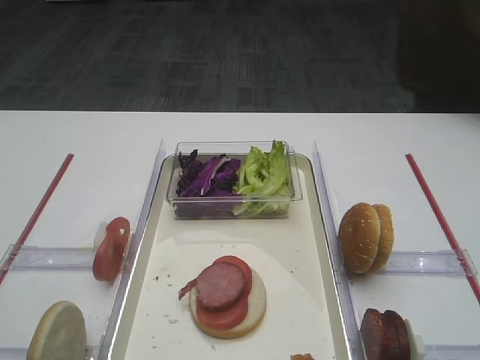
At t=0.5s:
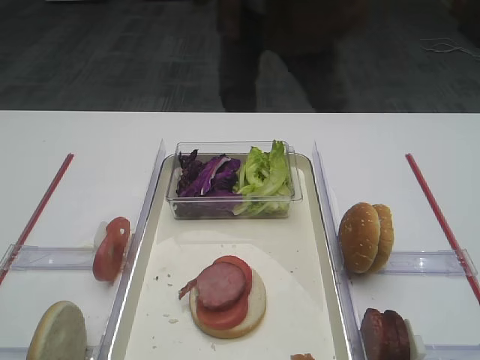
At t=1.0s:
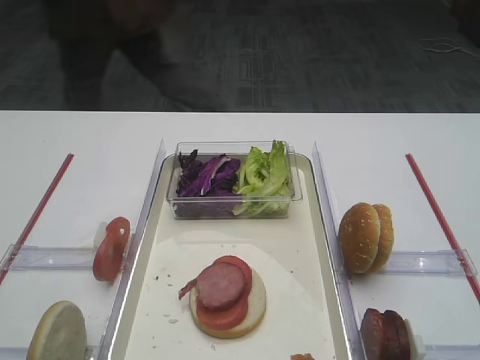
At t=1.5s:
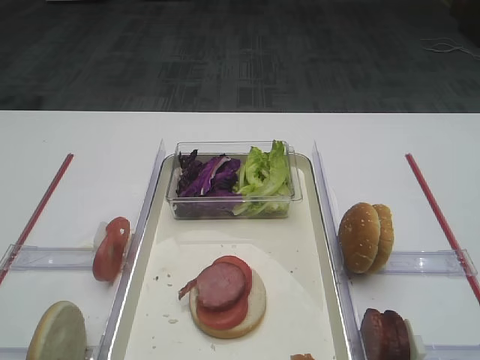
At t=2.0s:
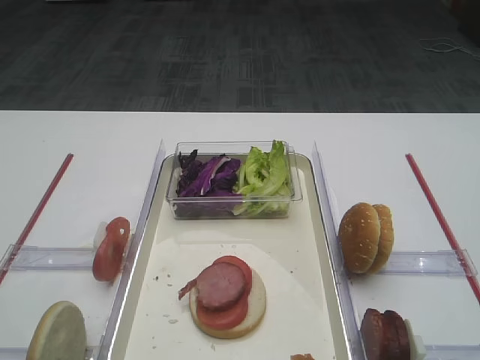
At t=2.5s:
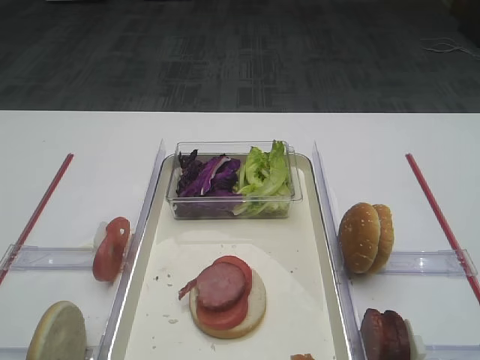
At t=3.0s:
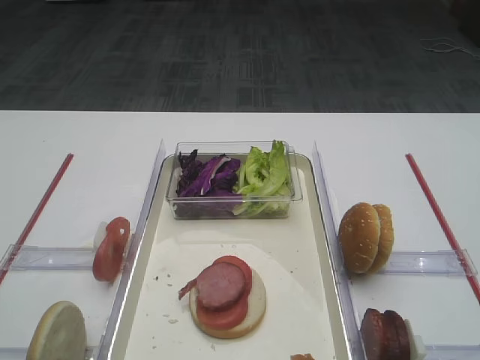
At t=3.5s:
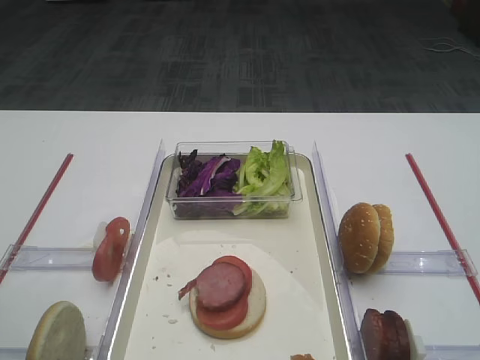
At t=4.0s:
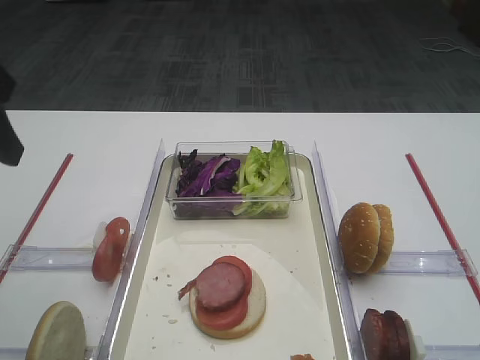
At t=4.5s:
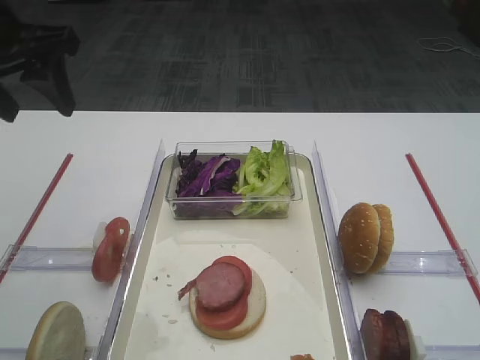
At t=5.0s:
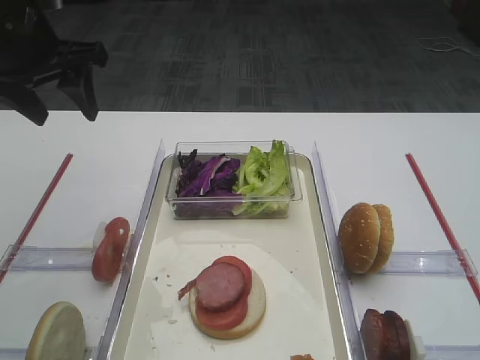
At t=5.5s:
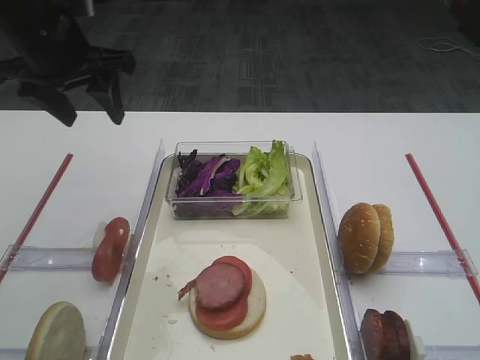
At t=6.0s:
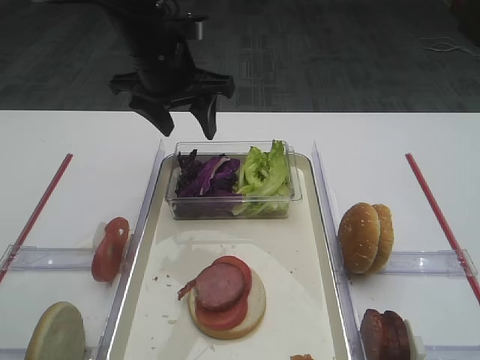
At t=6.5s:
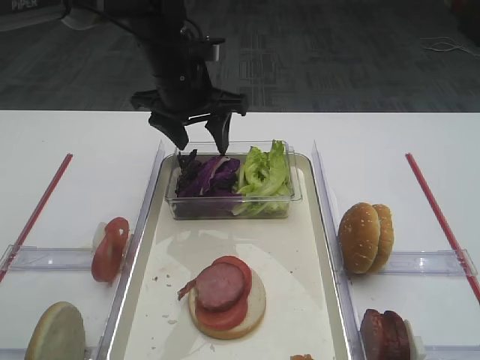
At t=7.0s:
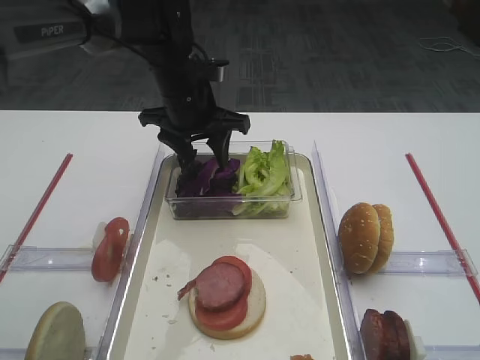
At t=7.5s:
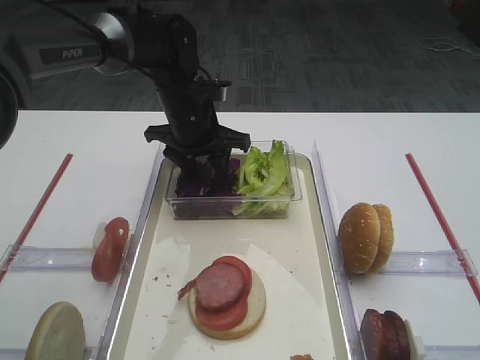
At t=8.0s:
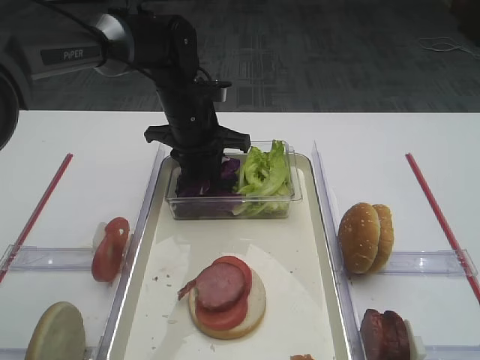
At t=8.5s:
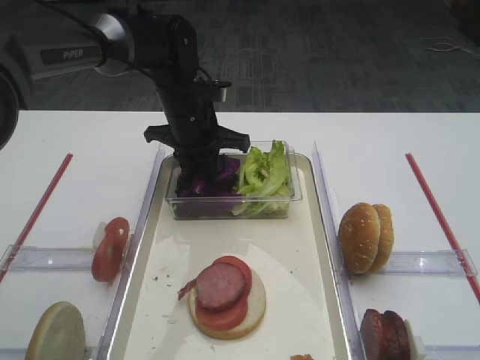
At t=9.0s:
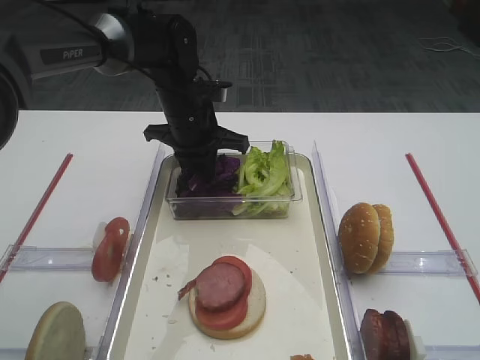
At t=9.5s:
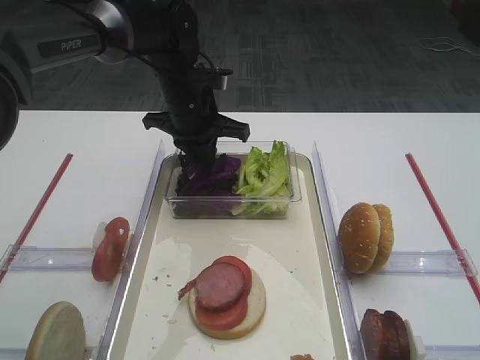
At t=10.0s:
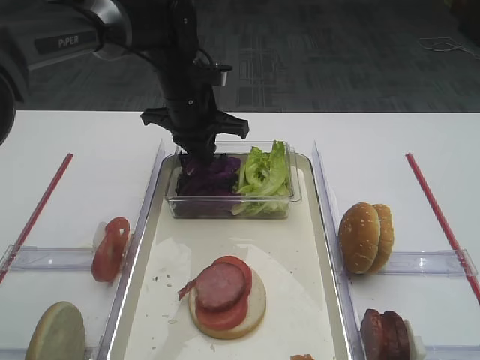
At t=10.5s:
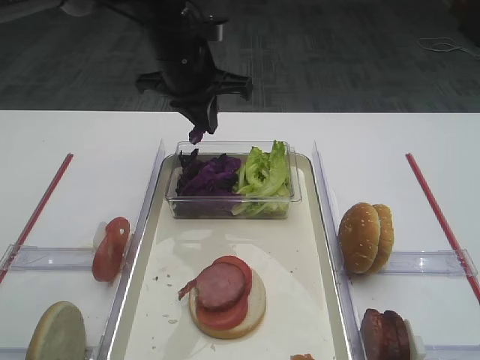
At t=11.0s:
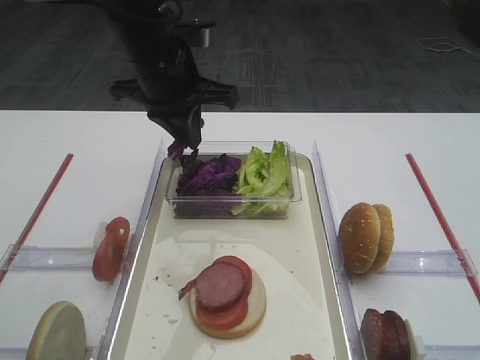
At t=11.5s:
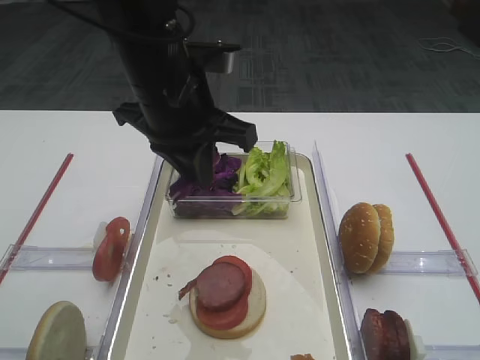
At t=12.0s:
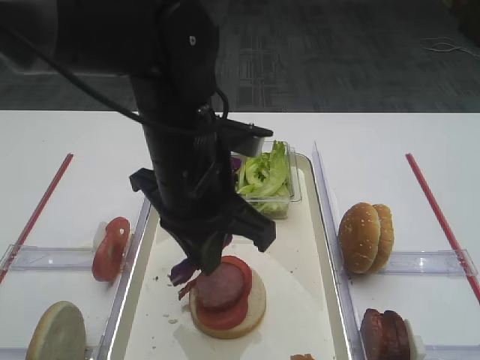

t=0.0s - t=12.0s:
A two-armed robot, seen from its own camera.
Step, t=0.0s - t=10.0s: Pick up the purple cabbage with the left gripper.
t=2.0s - t=4.0s: The left gripper travels forward by about 20 cm, and opens.
t=4.0s - t=6.0s: The left gripper moves forward and to the right, approximately 25 cm.
t=6.0s - t=8.0s: The left gripper heads downward, covering roughly 10 cm, and closes up.
t=8.0s - t=10.0s: The left gripper closes.
t=10.0s - t=12.0s: The right gripper closes up. The left gripper heads backward, covering approximately 20 cm.

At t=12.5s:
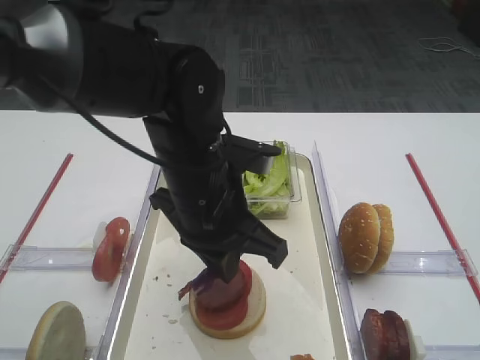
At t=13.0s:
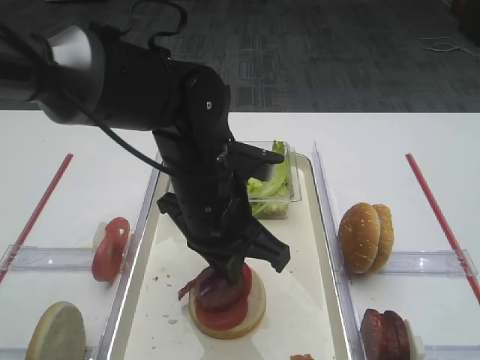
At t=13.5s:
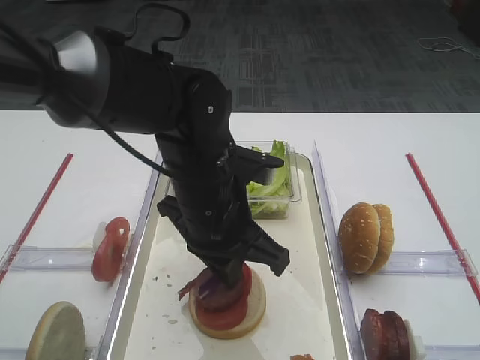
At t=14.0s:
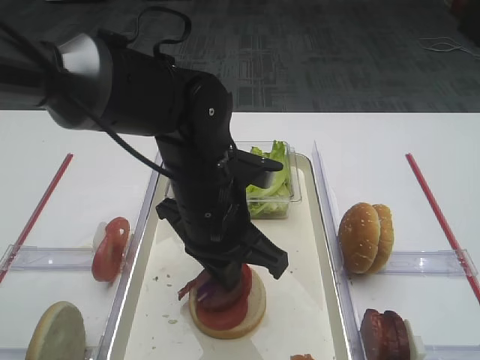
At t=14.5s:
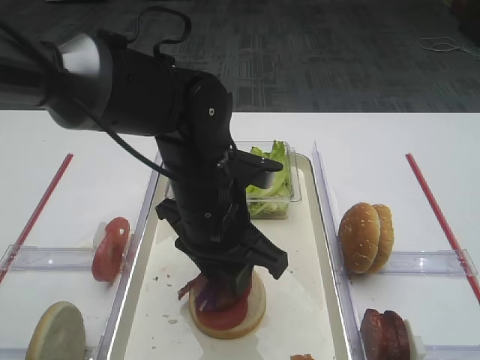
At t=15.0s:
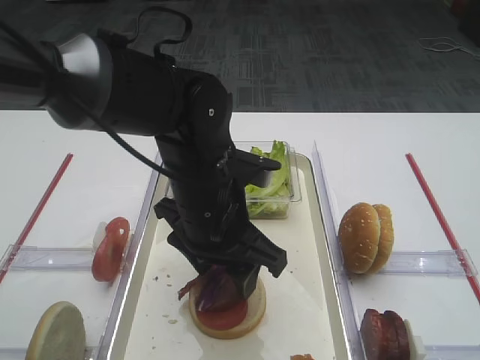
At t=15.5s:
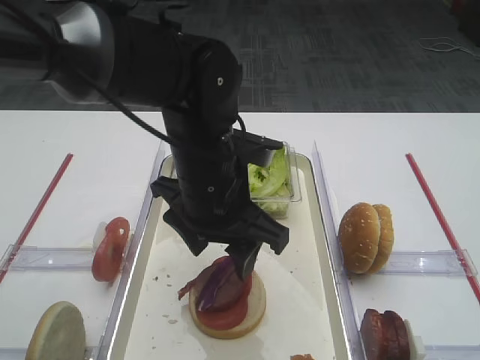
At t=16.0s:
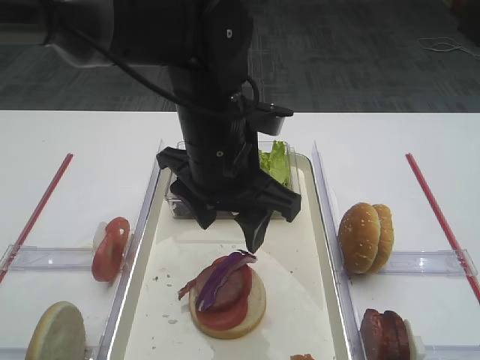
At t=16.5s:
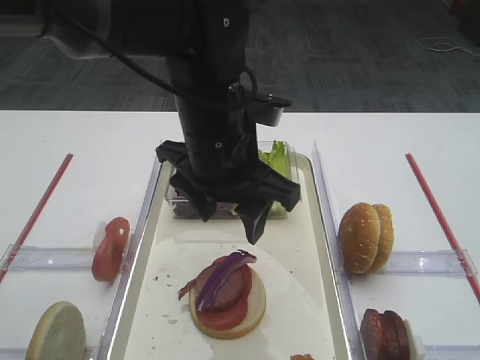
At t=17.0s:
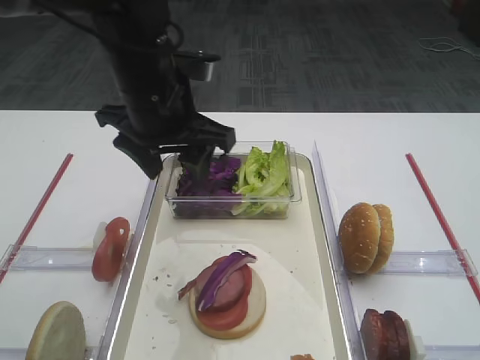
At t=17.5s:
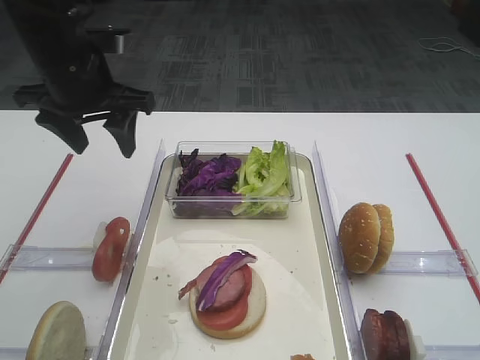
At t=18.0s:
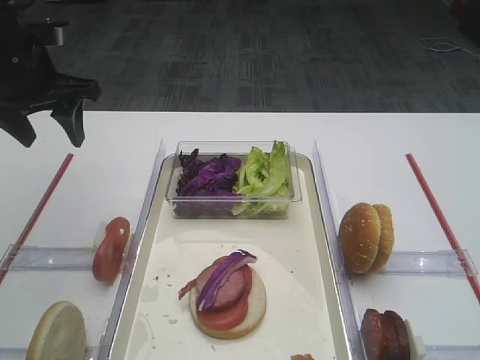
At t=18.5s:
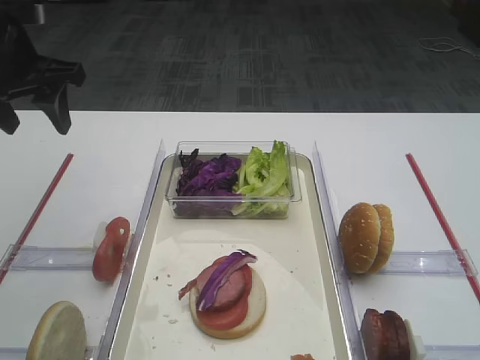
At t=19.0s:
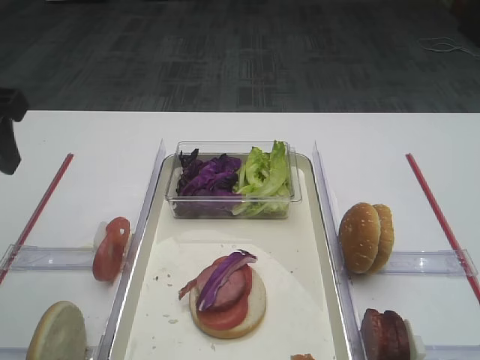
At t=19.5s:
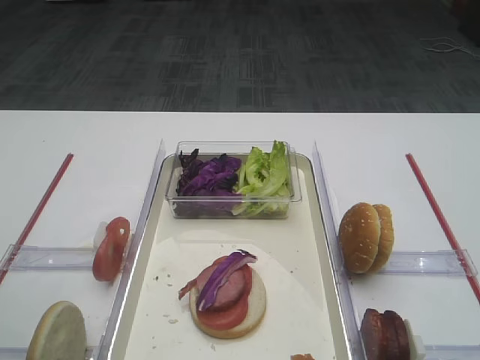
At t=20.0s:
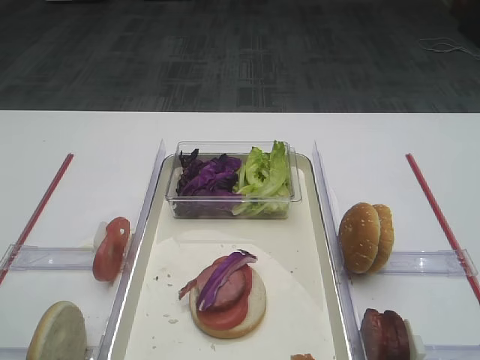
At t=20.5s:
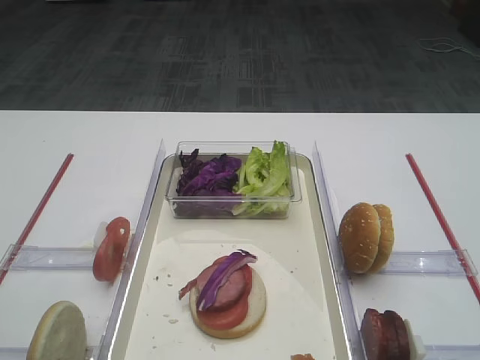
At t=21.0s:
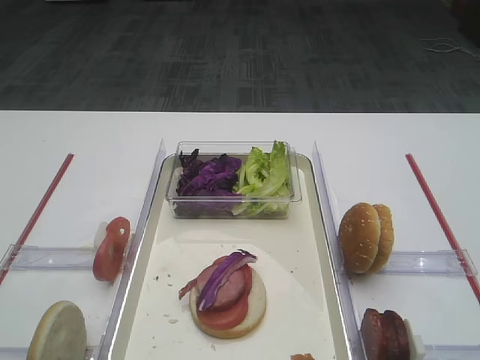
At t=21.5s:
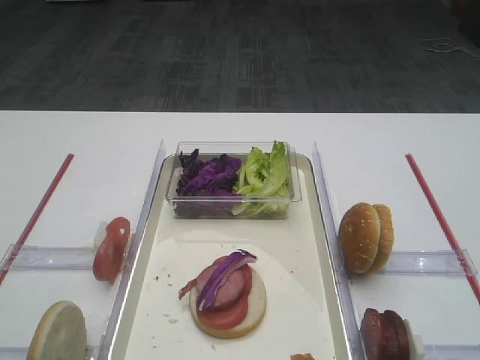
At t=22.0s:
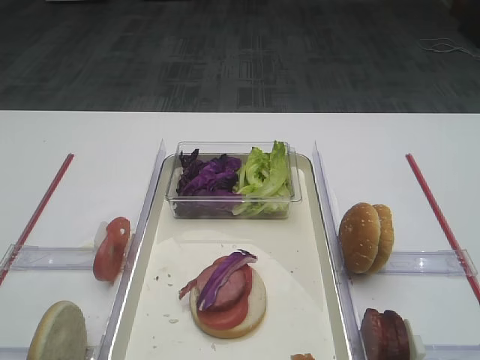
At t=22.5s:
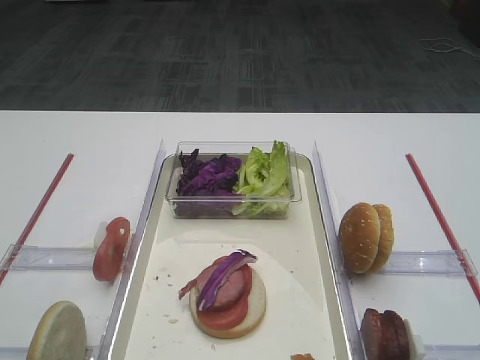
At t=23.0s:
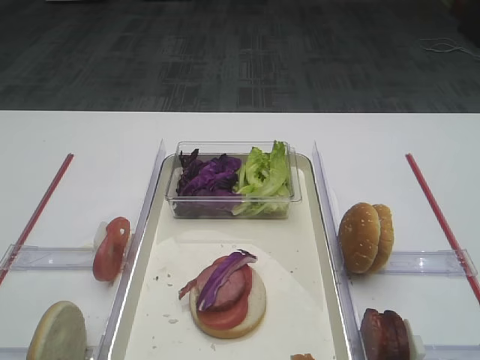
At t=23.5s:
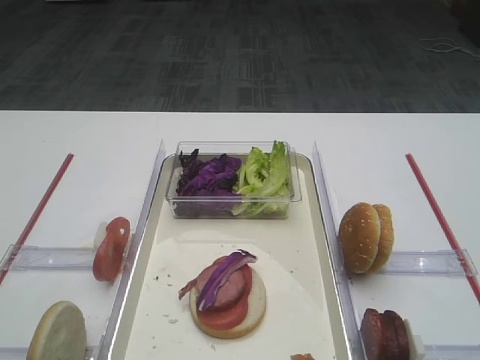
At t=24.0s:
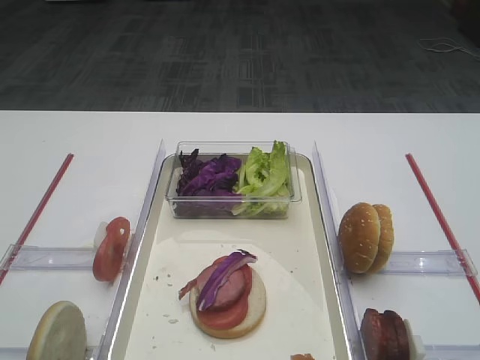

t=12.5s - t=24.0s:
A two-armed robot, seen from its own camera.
Step, t=12.5s - t=15.5s: Place the purple cabbage on the cutlet with the left gripper.
t=12.5s - t=14.5s: The left gripper opens its fingers.
t=14.5s - t=16.5s: The left gripper travels upward by approximately 5 cm, and opens its fingers.
t=16.5s - t=18.5s: The left gripper is displaced to the left by about 25 cm.
t=18.5s - t=20.0s: The left gripper shifts about 25 cm backward.
t=22.0s - t=24.0s: Both grippers stay about where they are.

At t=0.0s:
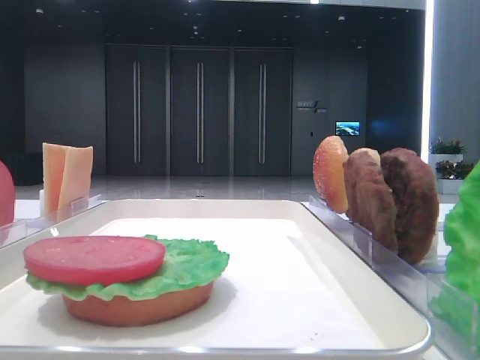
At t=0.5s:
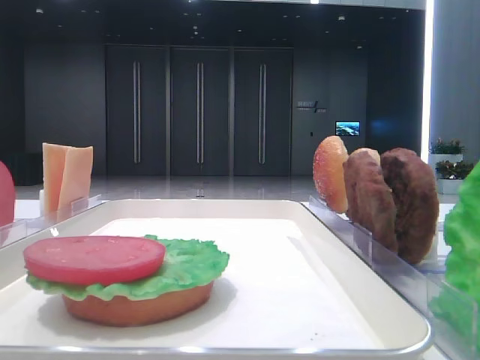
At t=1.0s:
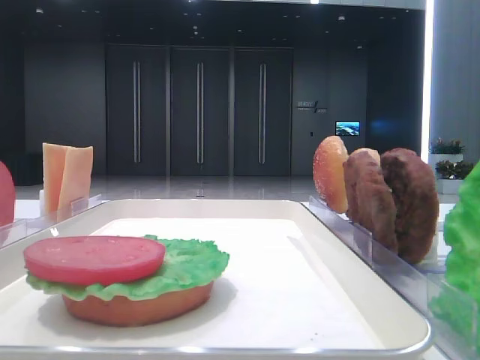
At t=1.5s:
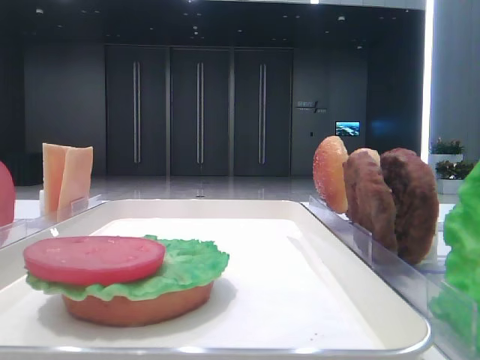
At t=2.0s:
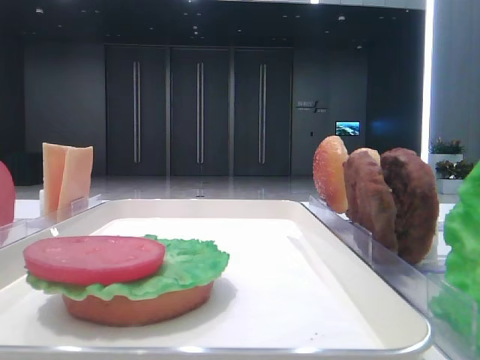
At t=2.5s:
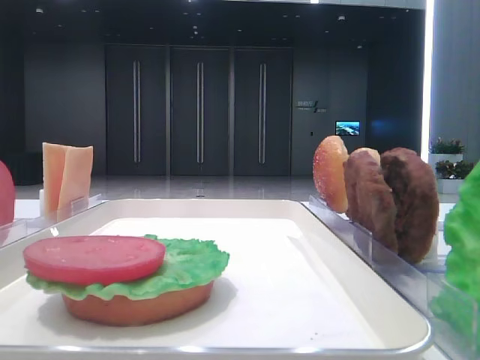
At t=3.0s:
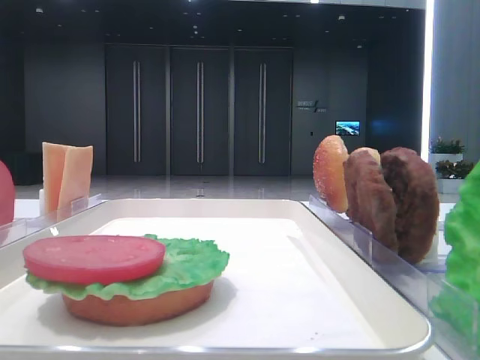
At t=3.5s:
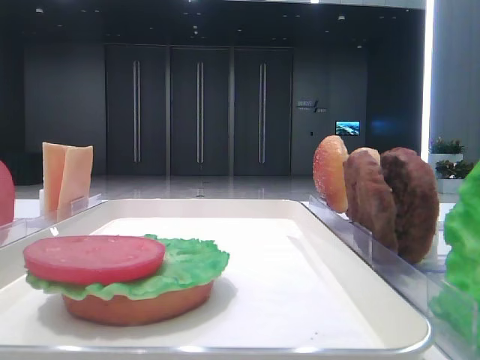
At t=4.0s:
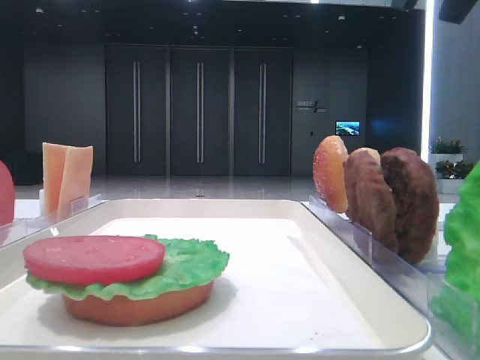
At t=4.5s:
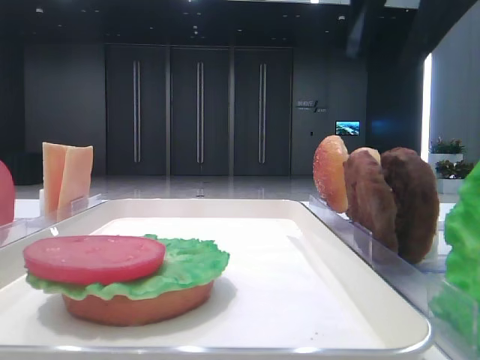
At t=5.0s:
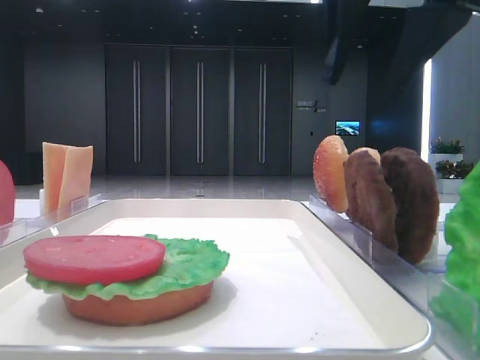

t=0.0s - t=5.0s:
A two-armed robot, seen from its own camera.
t=2.5s - t=5.0s: The right gripper heads to the left and forward, covering about 20 cm, and opens its fingers.
